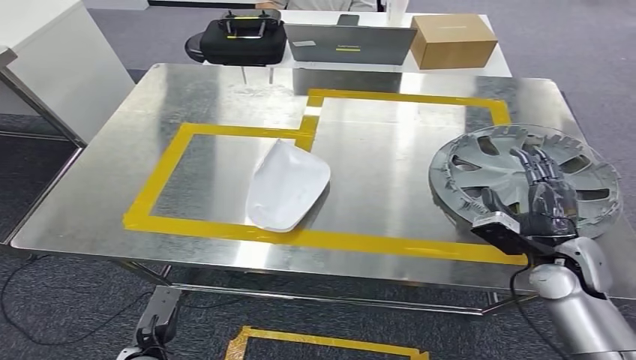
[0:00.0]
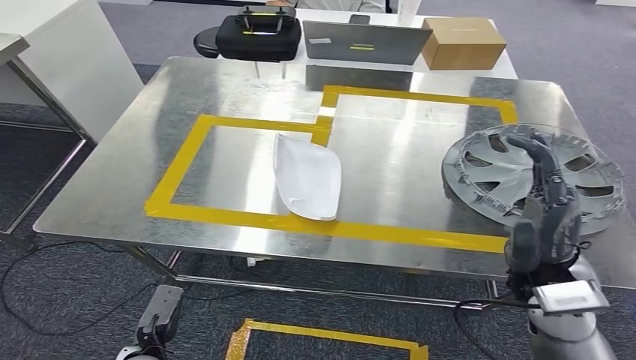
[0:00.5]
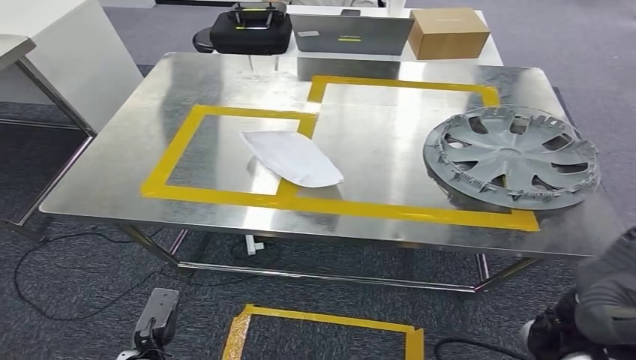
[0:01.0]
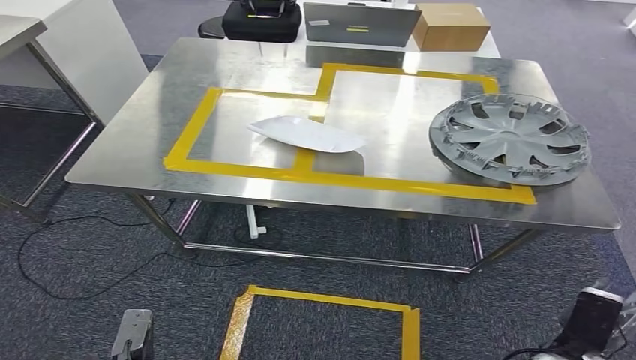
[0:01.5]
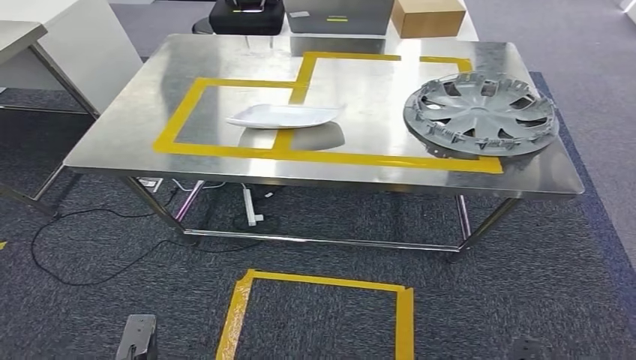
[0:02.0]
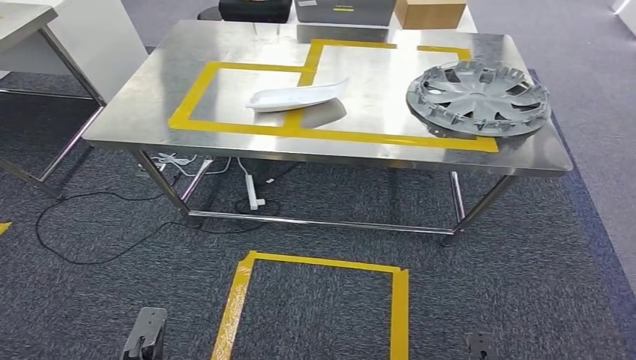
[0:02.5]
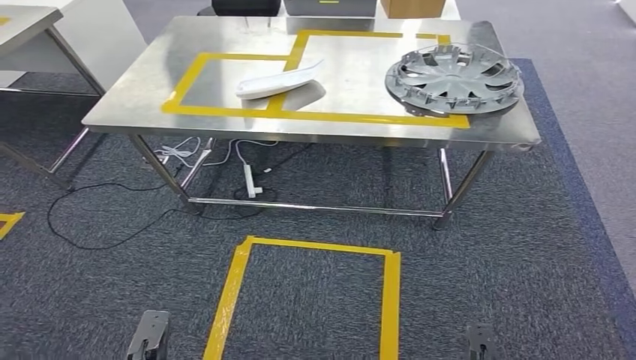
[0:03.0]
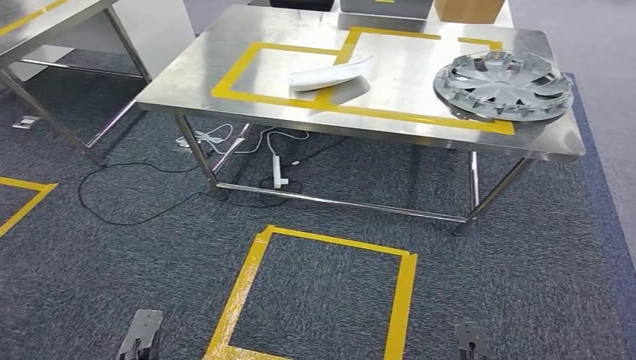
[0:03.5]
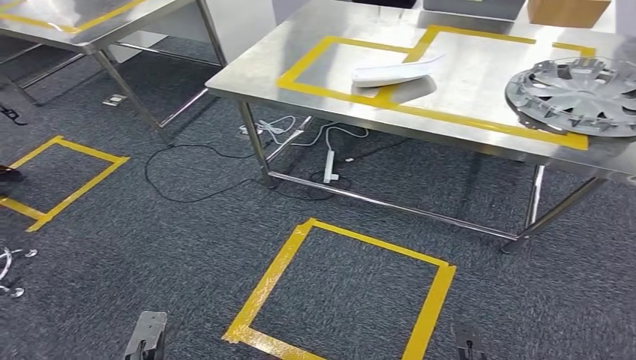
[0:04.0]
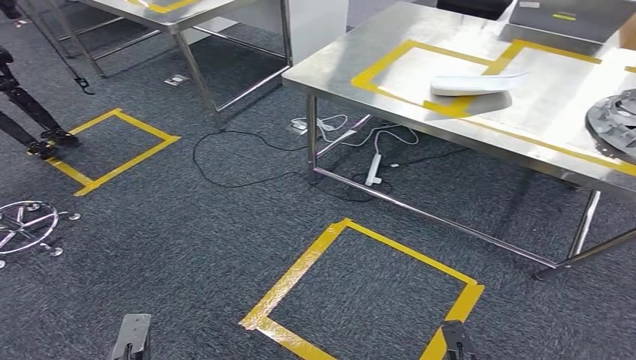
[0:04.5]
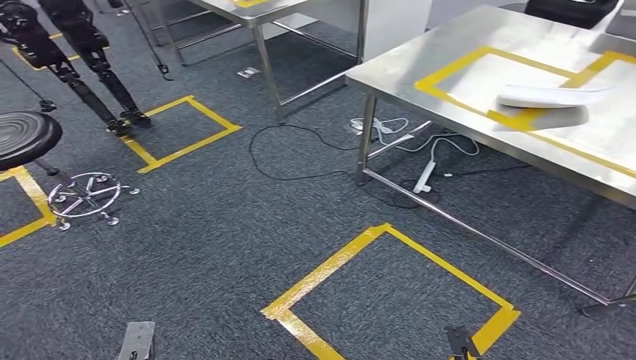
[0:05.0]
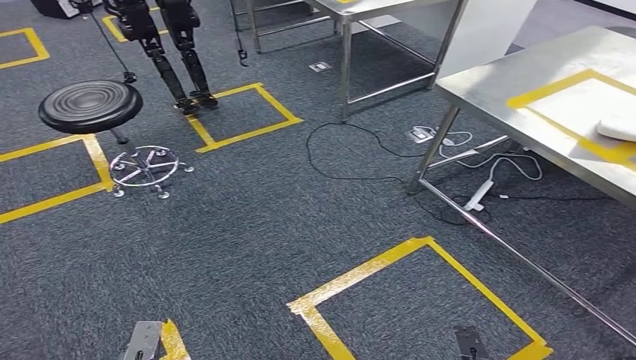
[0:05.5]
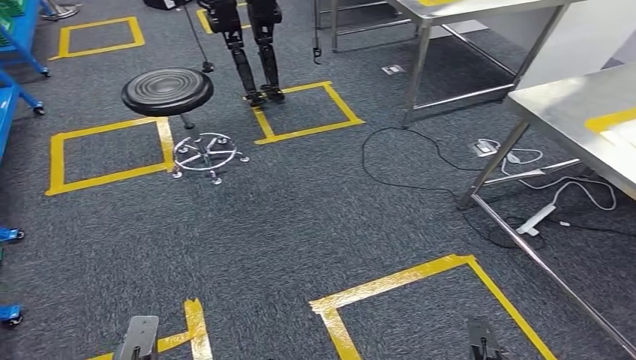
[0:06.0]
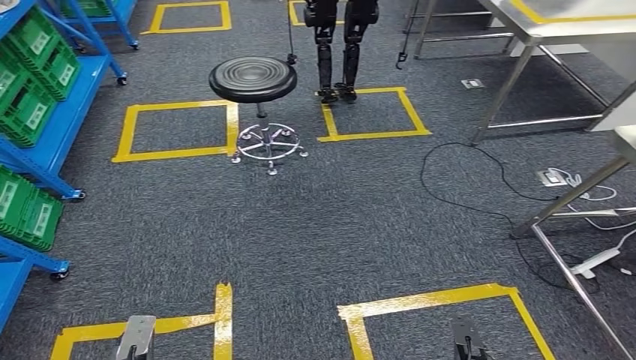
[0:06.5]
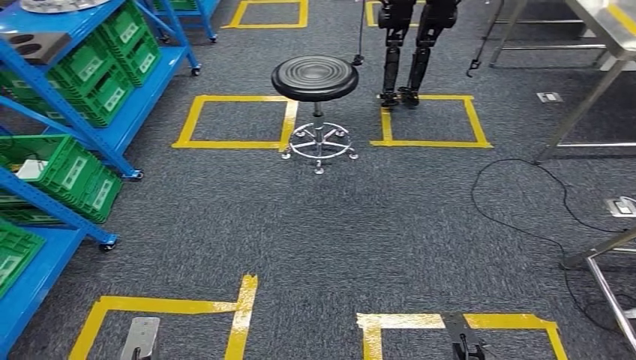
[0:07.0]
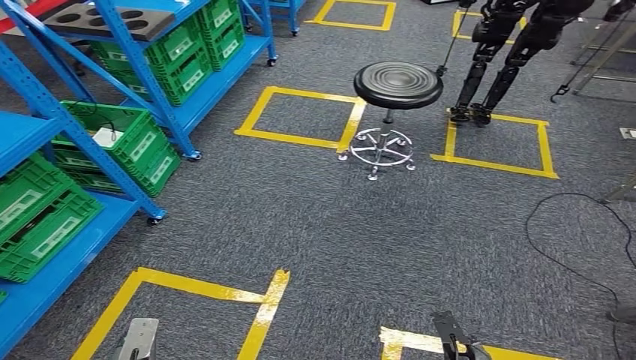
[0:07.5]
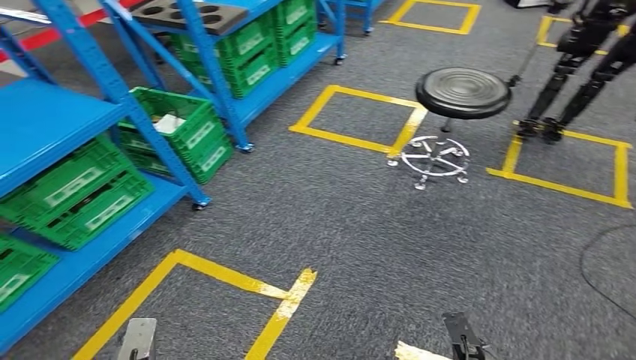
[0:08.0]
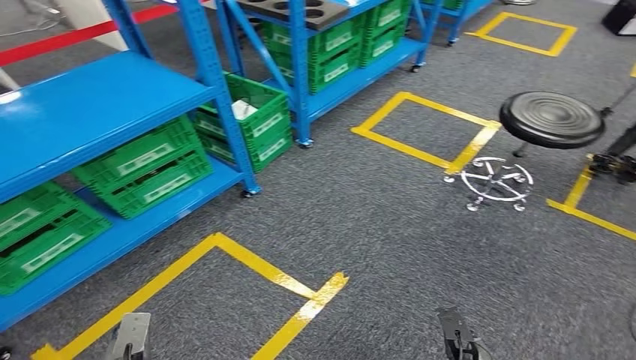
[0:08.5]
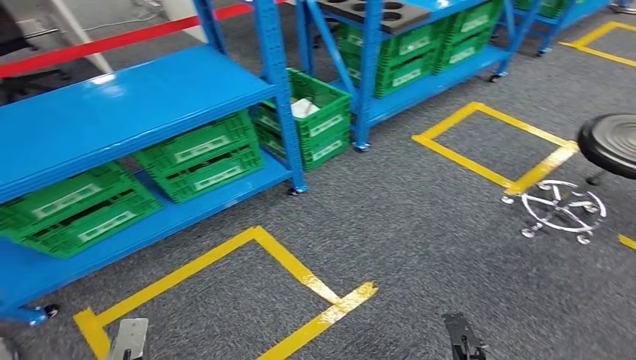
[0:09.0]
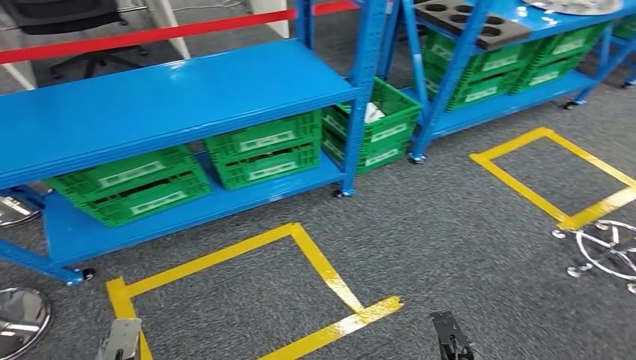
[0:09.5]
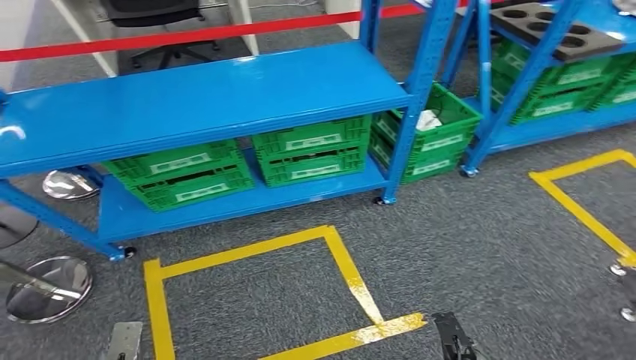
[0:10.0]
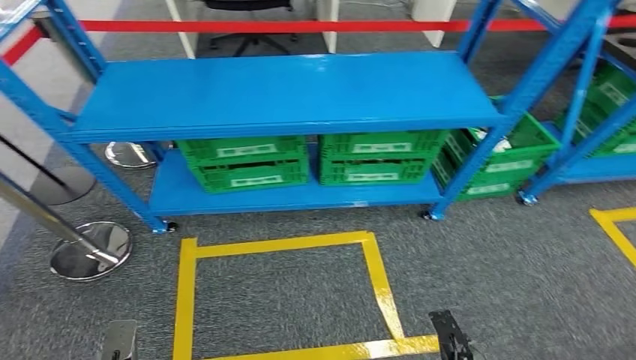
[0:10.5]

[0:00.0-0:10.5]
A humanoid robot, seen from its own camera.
Step, 0:01.5 to 0:10.5: Return to the initial position at the workbench.
